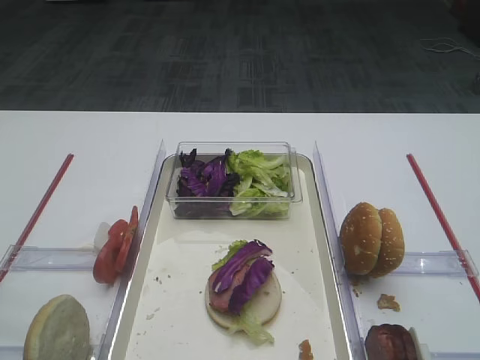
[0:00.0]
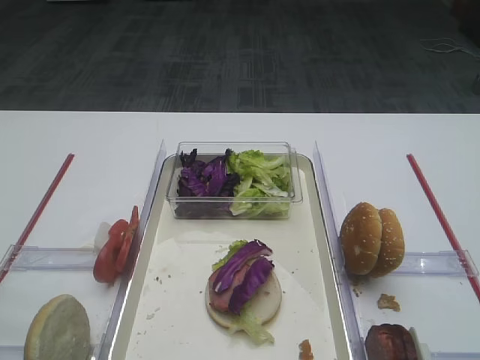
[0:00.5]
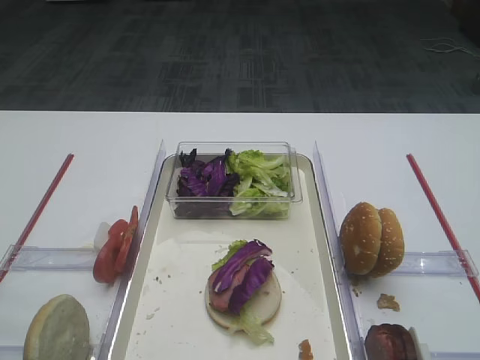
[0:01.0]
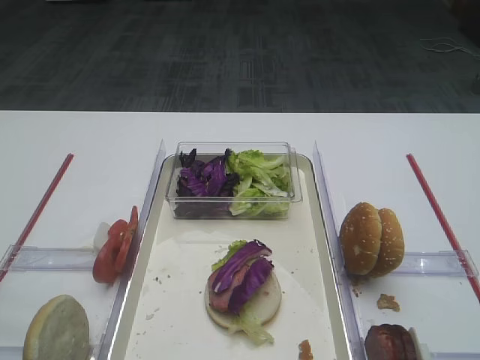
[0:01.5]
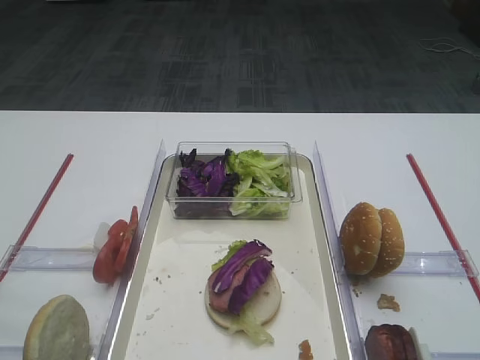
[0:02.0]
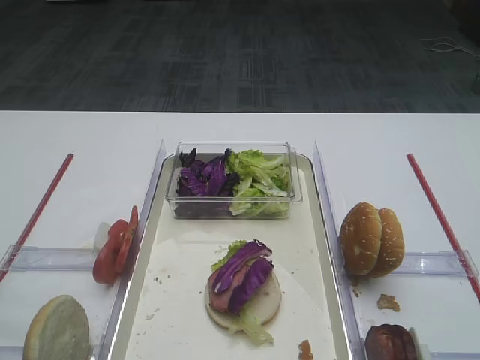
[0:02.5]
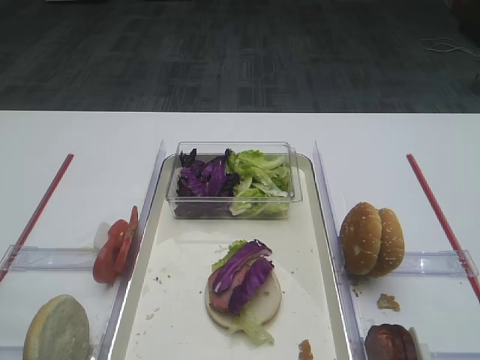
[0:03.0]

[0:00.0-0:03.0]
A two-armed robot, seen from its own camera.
0:01.5 to 0:03.0: The two grippers keep their place.

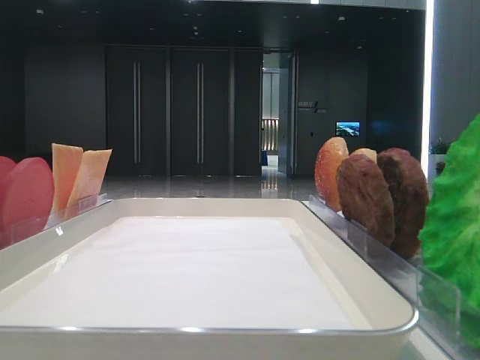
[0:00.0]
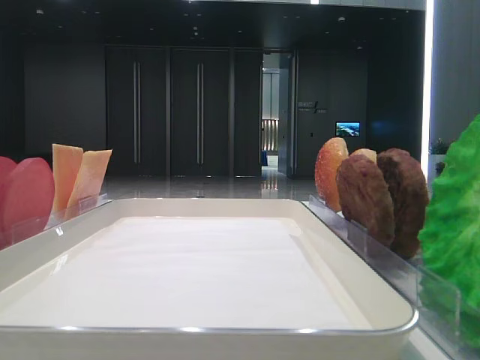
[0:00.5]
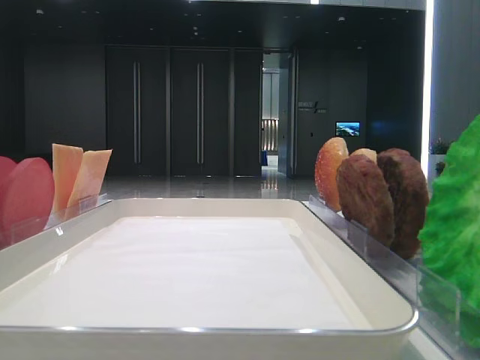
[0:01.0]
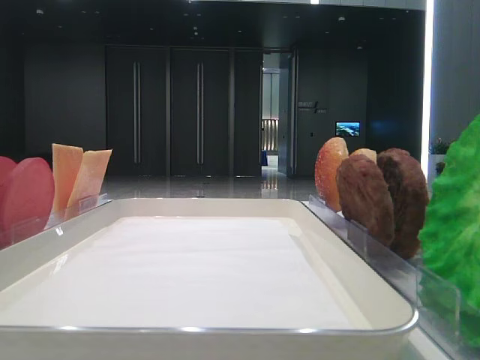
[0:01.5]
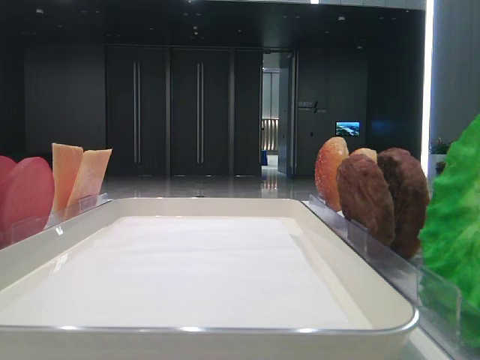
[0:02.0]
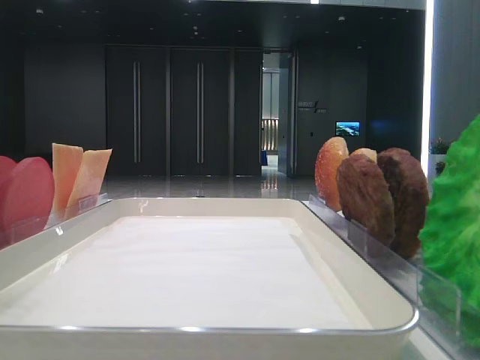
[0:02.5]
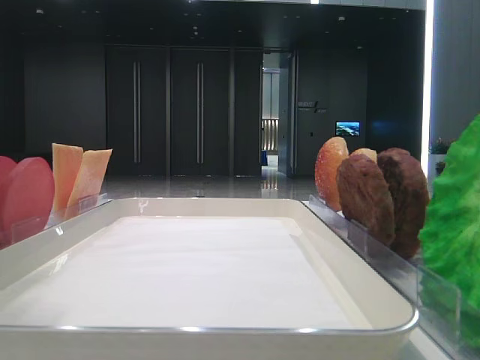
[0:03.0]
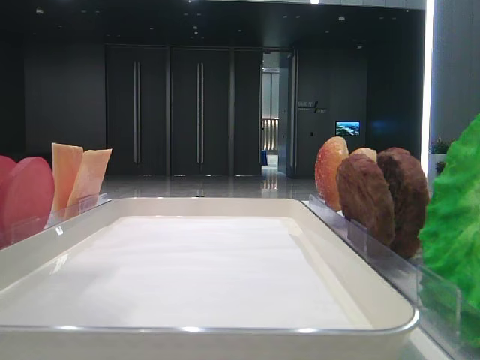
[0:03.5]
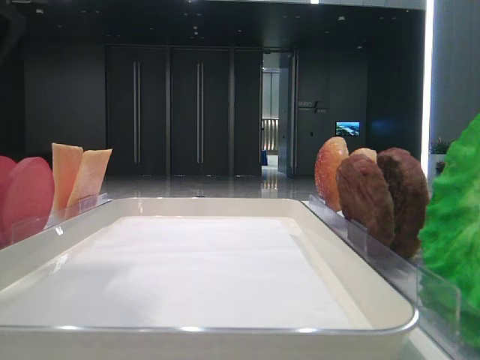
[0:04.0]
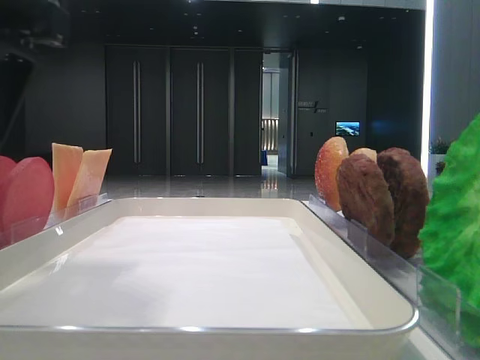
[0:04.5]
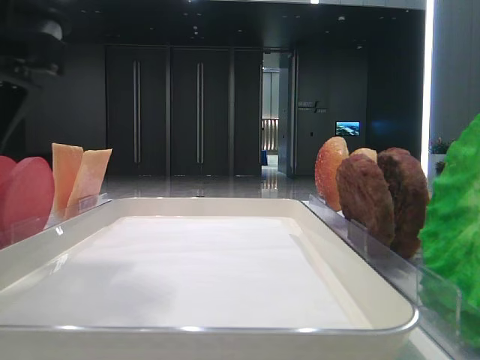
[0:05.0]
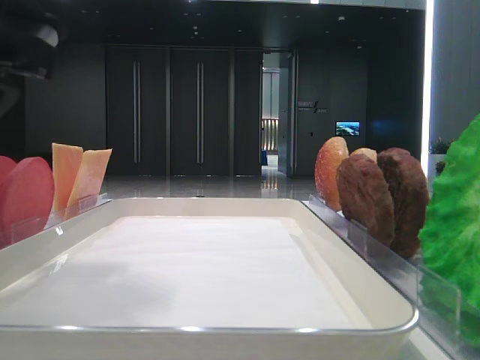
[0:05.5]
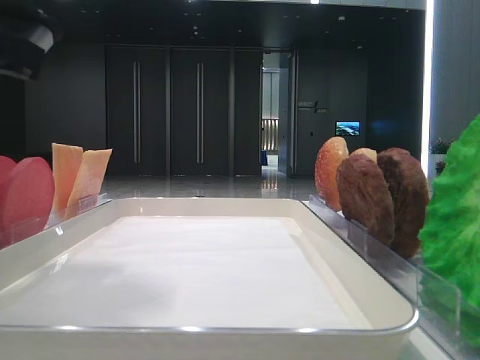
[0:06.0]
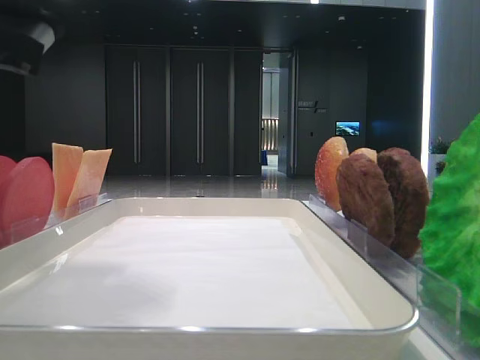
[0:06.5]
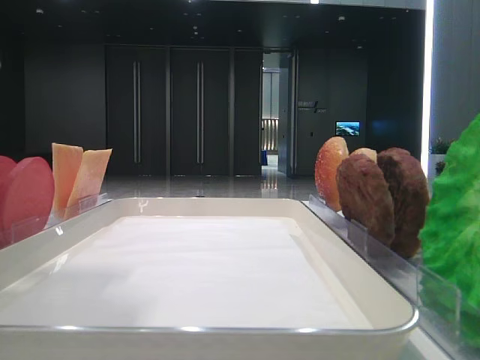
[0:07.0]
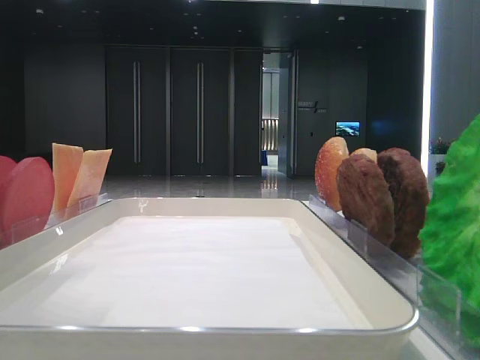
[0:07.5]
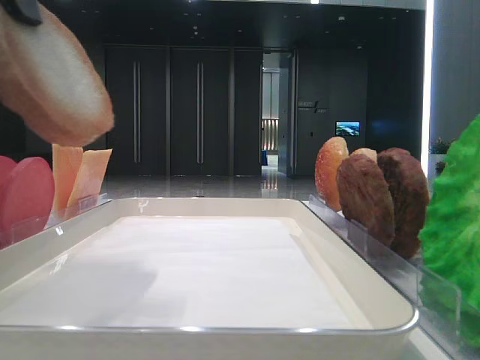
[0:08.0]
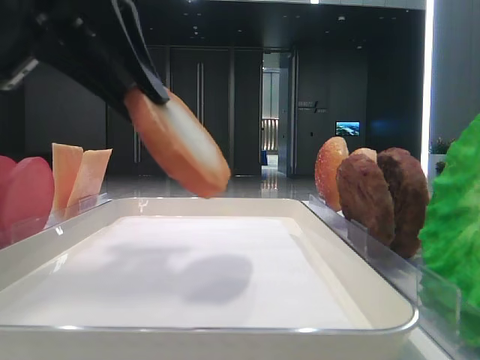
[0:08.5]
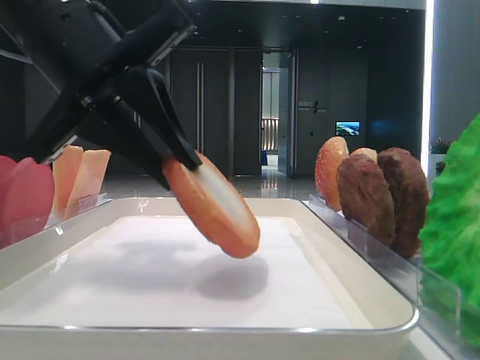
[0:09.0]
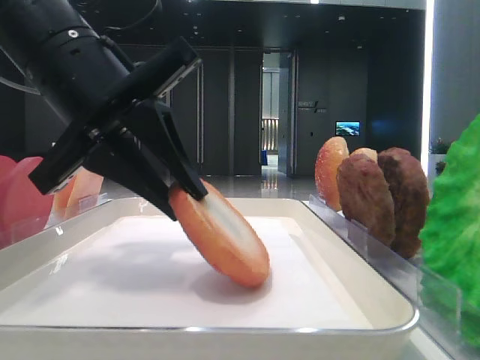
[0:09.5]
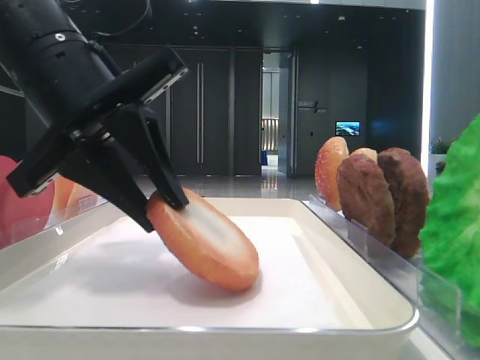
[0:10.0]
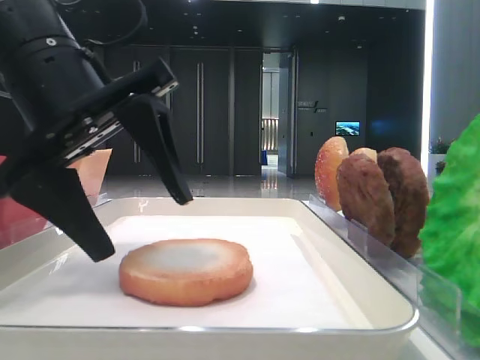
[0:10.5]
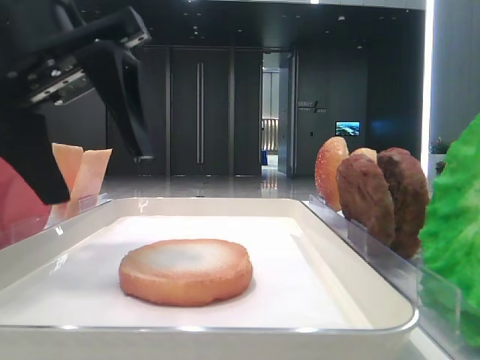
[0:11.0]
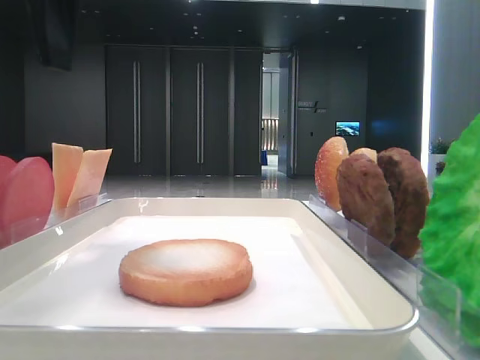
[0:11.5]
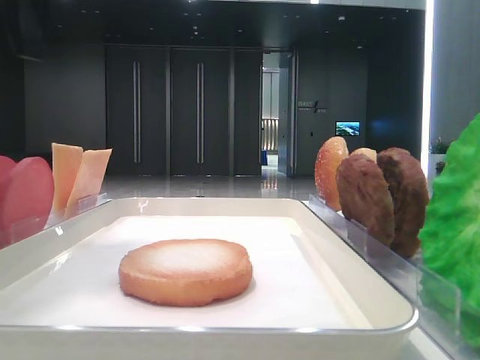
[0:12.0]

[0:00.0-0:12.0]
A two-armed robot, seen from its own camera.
Step, 0:00.0 to 0:06.0: Pick up the bottom bread with the left hand.
Step, 0:06.5 to 0:10.0: Place the bread on the tray with the left hand.
0:02.0 to 0:04.0: The left gripper moves to the right and downward, roughly 20 cm.
0:06.0 to 0:08.0: The left gripper heads upward, covering roughly 10 cm.
0:08.0 to 0:10.0: The left gripper is displaced downward and forward by approximately 15 cm.
0:10.0 to 0:12.0: The left gripper shifts approximately 15 cm upward and to the left, and opens up.

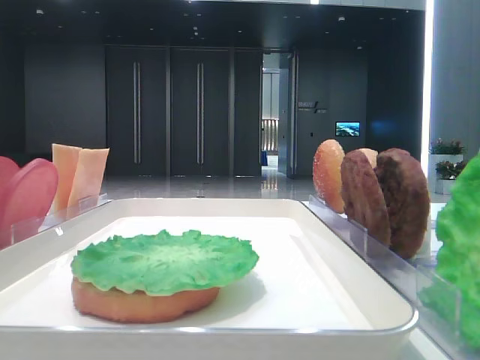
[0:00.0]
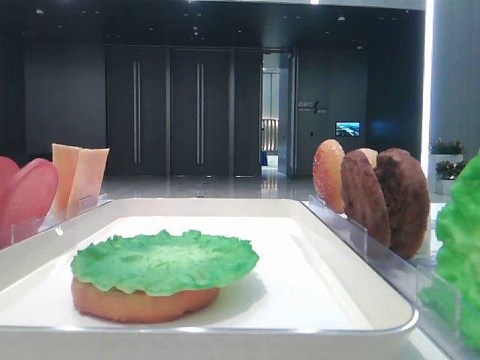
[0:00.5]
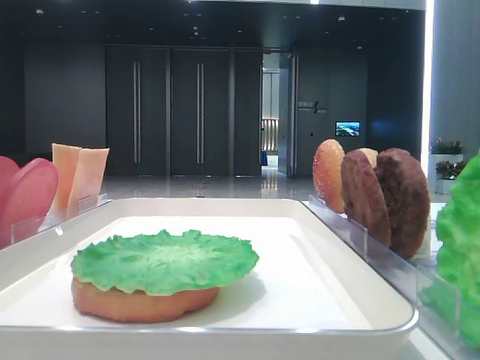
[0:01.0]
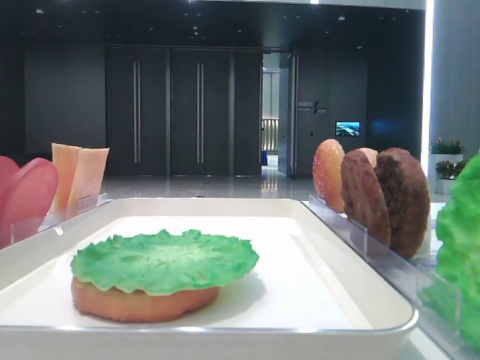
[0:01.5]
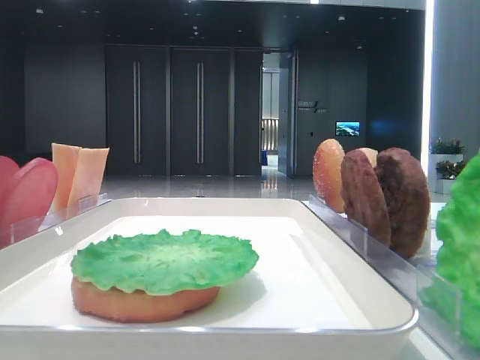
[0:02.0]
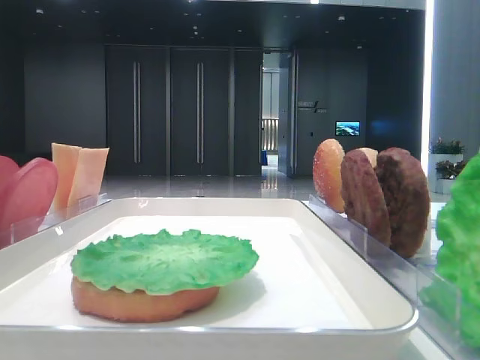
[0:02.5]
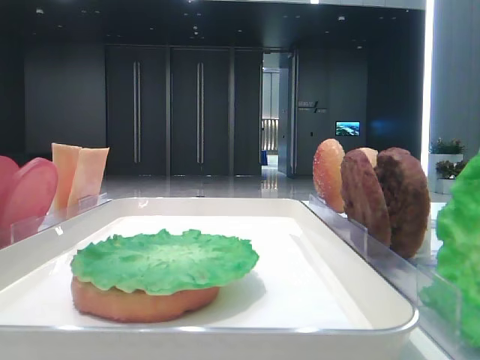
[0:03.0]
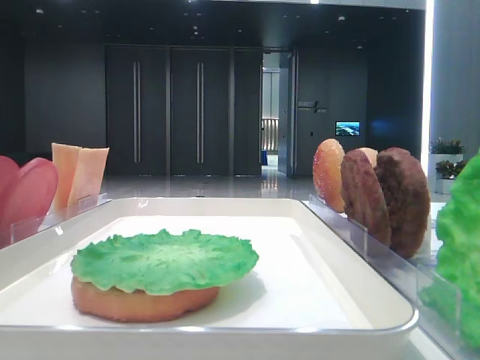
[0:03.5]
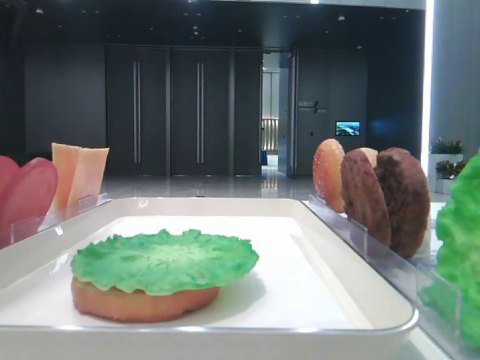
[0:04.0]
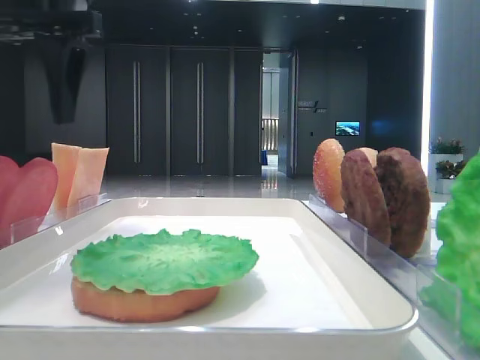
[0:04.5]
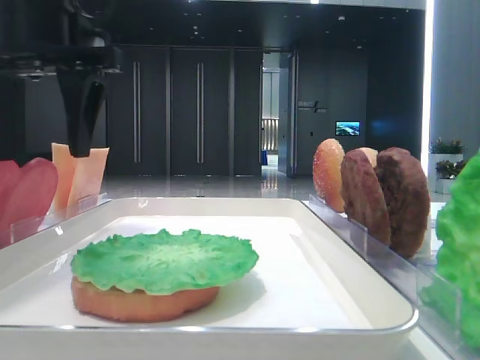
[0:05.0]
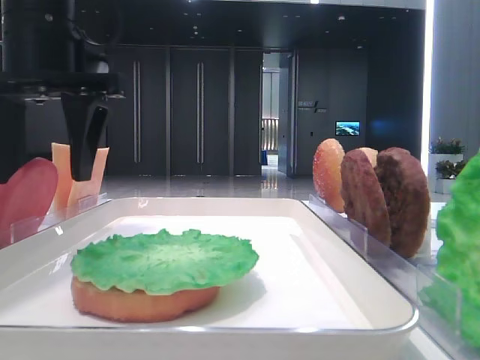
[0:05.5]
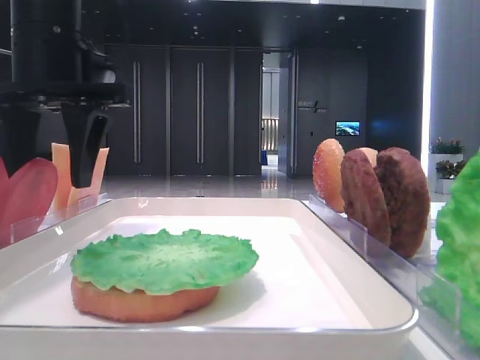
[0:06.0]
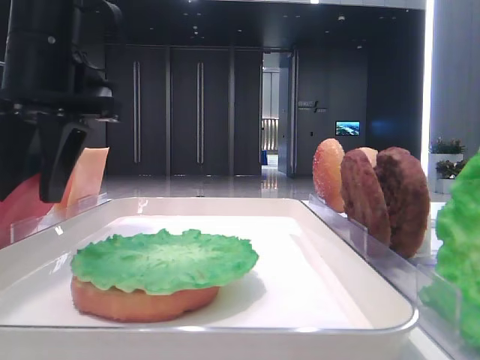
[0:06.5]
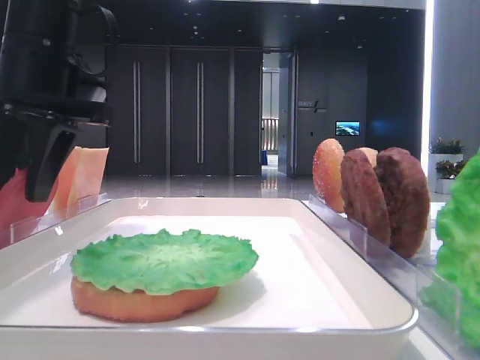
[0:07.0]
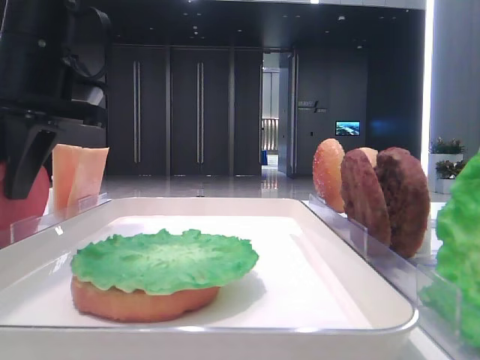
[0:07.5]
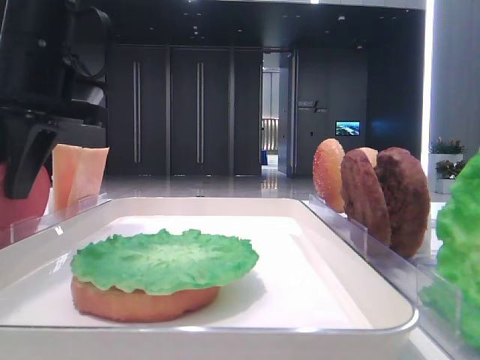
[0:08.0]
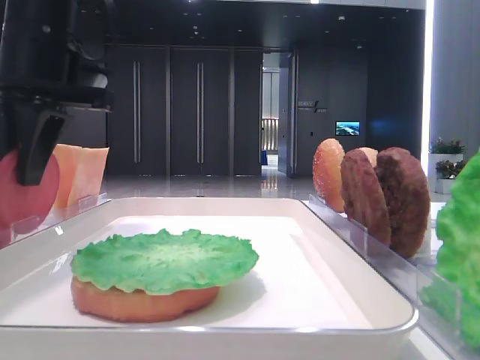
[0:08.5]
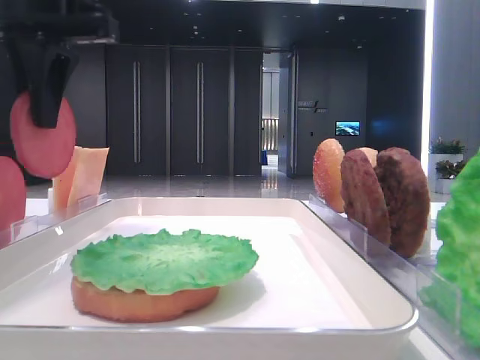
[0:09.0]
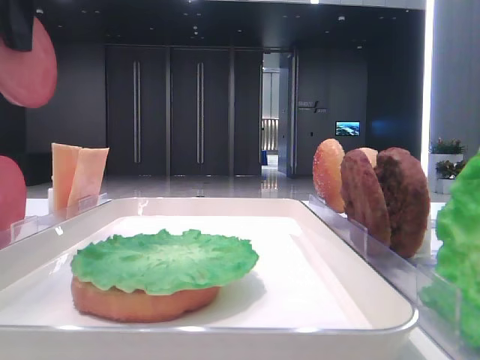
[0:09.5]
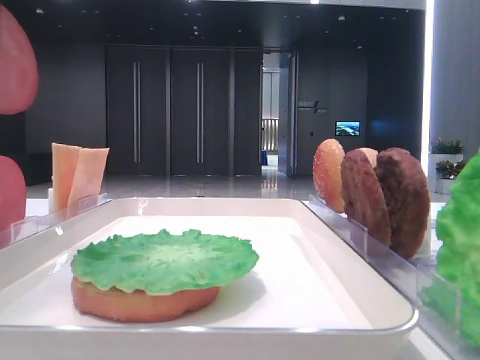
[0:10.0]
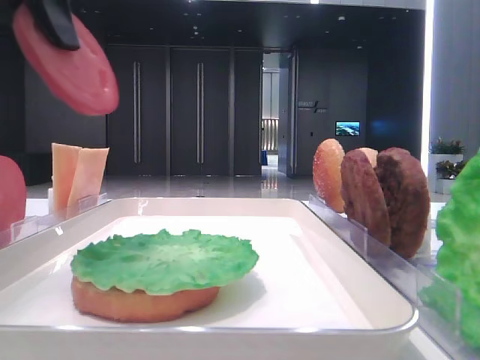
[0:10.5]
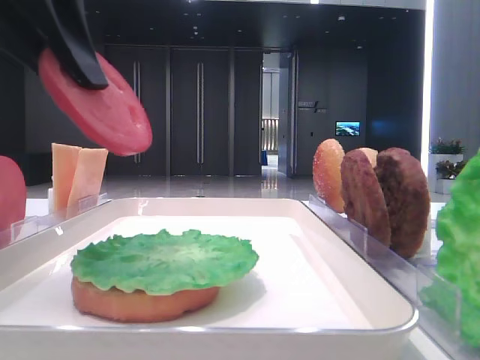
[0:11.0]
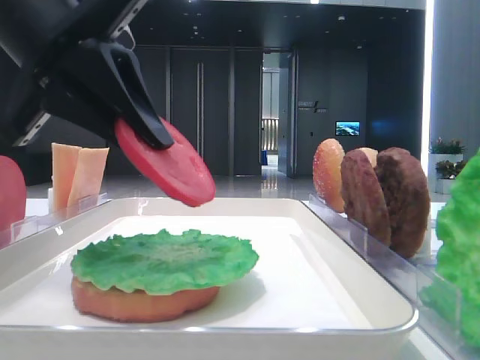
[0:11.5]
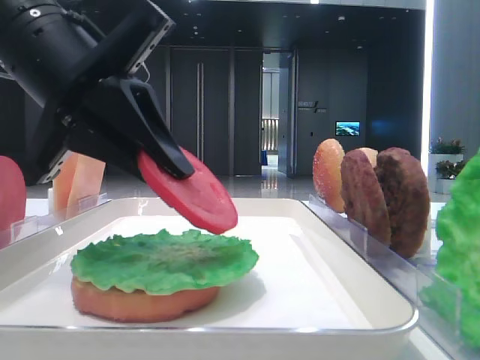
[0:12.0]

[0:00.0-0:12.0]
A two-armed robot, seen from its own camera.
Step, 0:00.0 to 0:07.0: Pick up the tomato slice with the left hand.
0:02.0 to 0:04.0: The left gripper goes approximately 10 cm to the right and forward.
0:04.0 to 0:06.0: The left gripper goes some 10 cm downward, to the right and forward.
0:06.0 to 0:08.0: The left gripper closes.
0:08.0 to 0:10.0: The left gripper shifts approximately 15 cm upward and backward.
0:10.0 to 0:12.0: The left gripper moves downward and to the right, approximately 15 cm.
